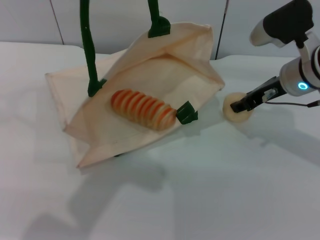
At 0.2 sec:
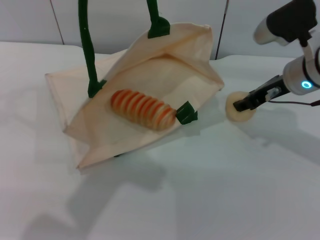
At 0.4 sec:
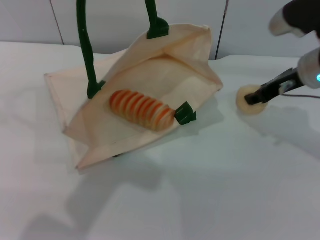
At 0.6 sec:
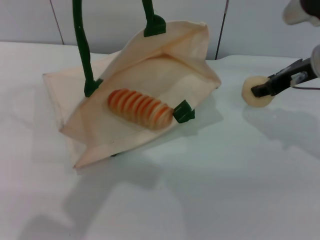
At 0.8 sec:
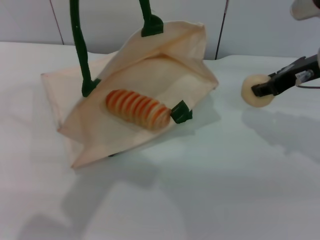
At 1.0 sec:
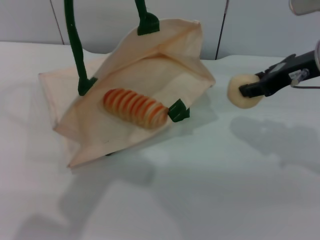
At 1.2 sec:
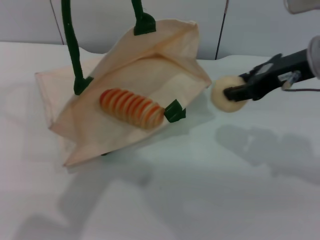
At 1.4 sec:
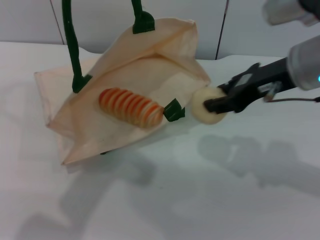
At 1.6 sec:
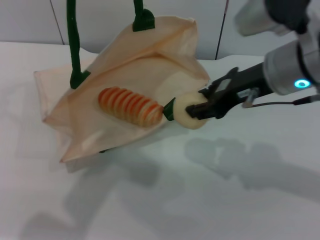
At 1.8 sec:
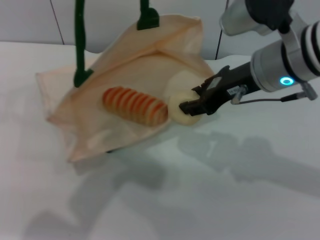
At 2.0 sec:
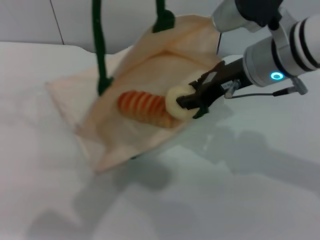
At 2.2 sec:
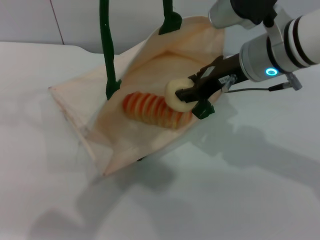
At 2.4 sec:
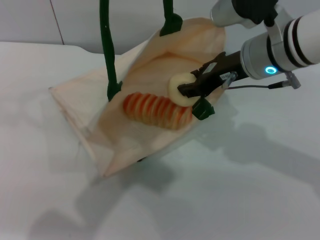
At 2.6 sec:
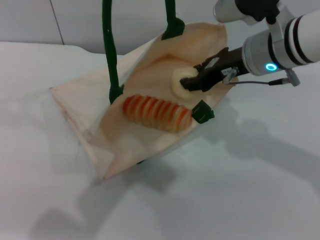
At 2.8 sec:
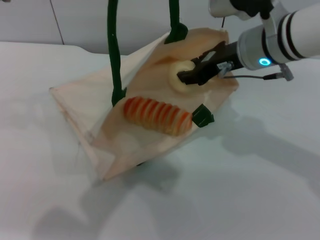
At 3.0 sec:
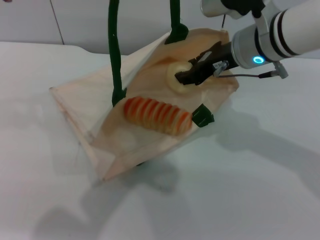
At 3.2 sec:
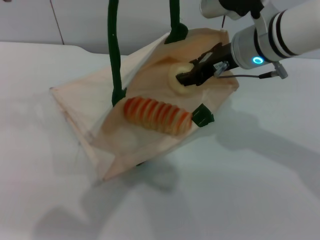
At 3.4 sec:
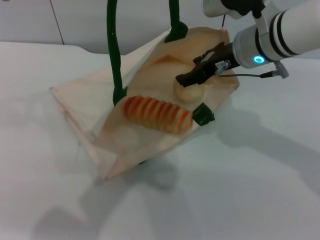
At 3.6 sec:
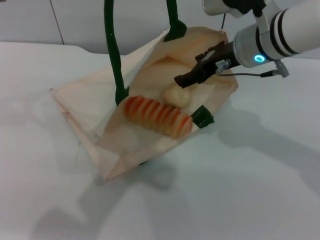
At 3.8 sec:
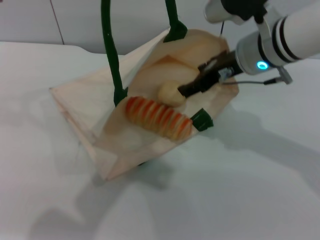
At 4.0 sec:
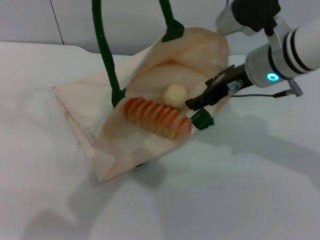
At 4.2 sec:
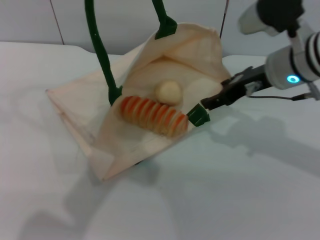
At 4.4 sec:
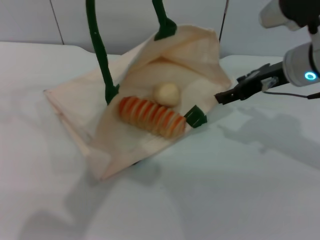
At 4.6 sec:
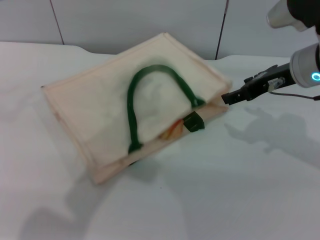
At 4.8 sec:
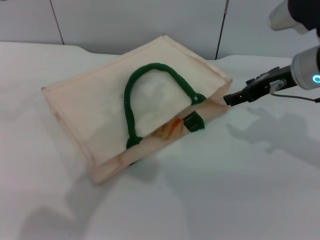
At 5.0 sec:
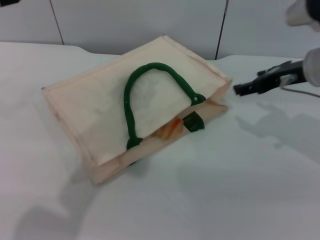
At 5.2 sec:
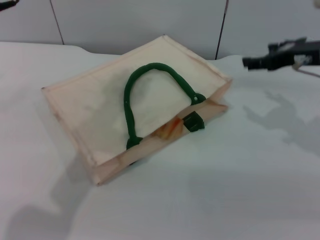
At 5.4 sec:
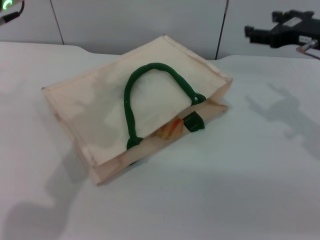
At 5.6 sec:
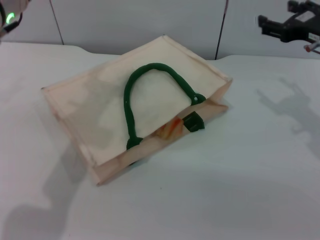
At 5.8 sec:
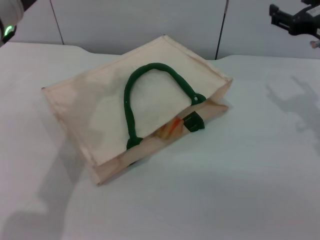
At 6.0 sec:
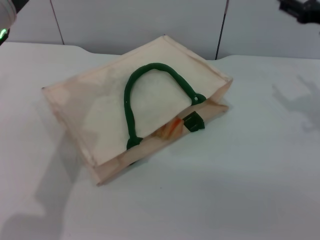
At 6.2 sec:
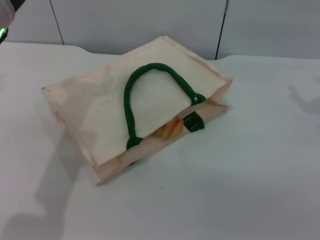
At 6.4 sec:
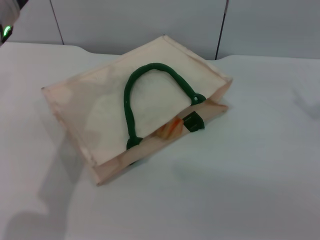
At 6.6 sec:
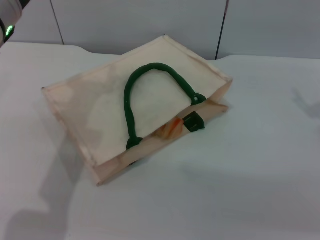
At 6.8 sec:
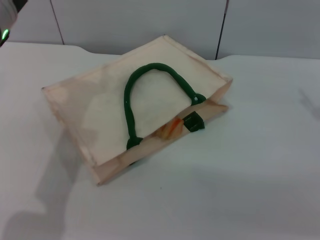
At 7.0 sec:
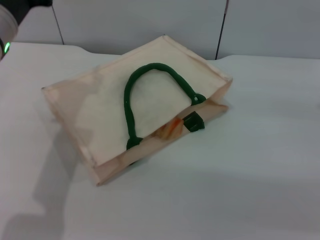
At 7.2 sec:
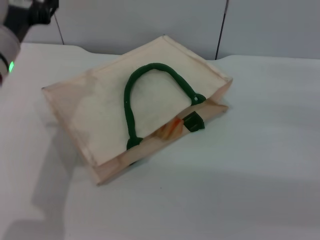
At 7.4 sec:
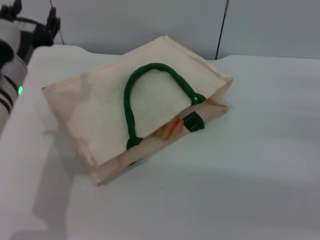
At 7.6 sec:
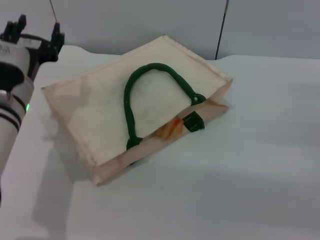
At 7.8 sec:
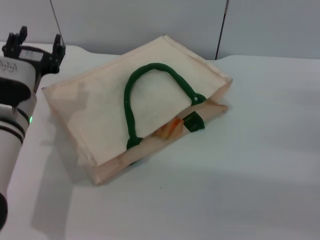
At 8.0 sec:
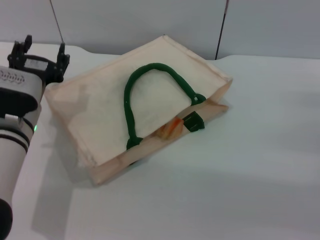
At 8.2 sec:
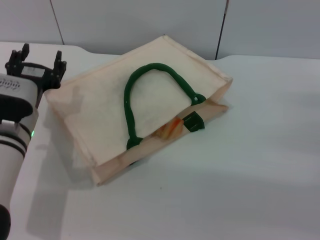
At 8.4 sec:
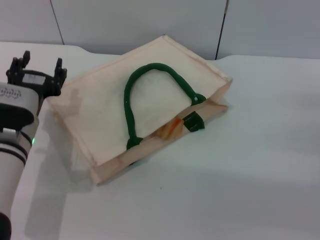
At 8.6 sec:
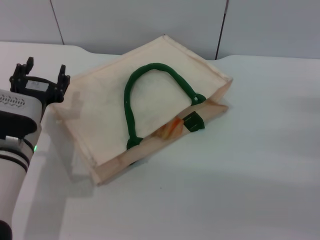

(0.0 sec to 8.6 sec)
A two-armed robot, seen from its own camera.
Task of the whole recording: pick up the bread and egg yolk pastry from the table and place it in the white handbag.
Step, 1.2 sec - 4.0 sec: Place the egg yolk pastry into the woven bag with the right gripper.
Step, 4.4 sec - 6.4 sec: Lower the woven bag with the left gripper to close it.
0.0 sec - 1.4 sec: The right gripper moves upward and backward, about 10 cm.
1.4 sec - 2.8 sec: The right gripper travels forward by about 5 cm.
2.8 sec - 4.4 sec: The right gripper heads to the right, covering some 5 cm, and opens its fingers.
4.4 sec - 5.8 sec: The right gripper shifts approximately 5 cm to the right. The left gripper heads downward, covering some 10 cm, and opens up.
5.8 sec - 7.2 sec: The right gripper moves downward, backward and to the right, approximately 10 cm; the left gripper travels downward by roughly 5 cm.
7.2 sec - 8.6 sec: The left gripper moves downward and backward, about 10 cm.
